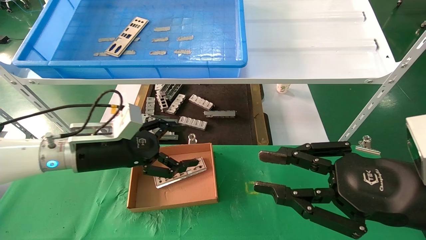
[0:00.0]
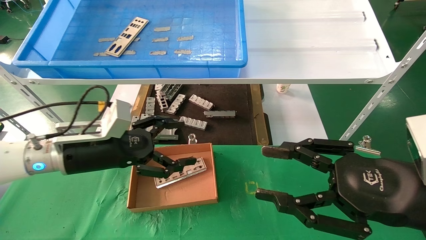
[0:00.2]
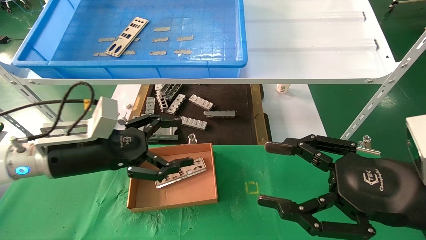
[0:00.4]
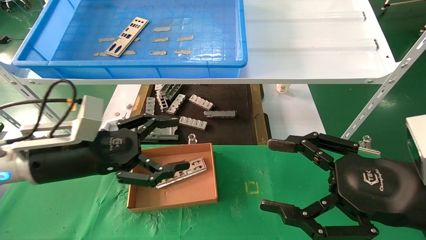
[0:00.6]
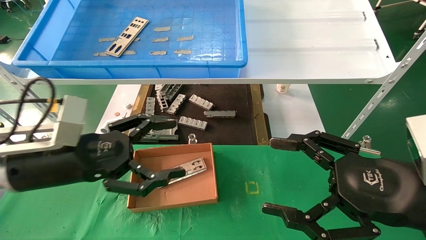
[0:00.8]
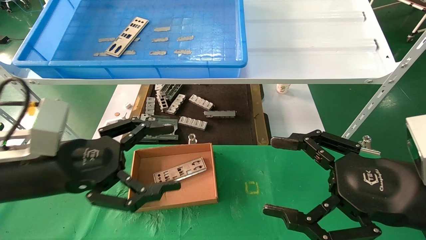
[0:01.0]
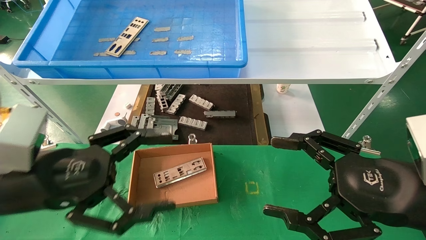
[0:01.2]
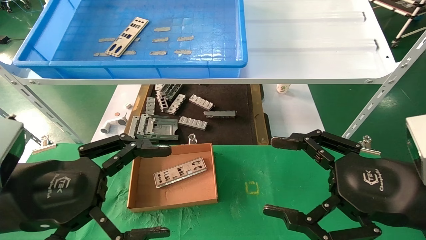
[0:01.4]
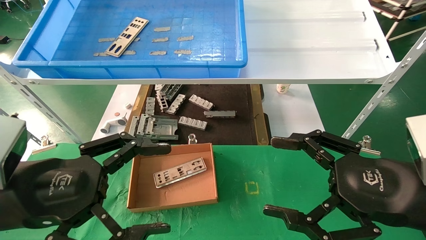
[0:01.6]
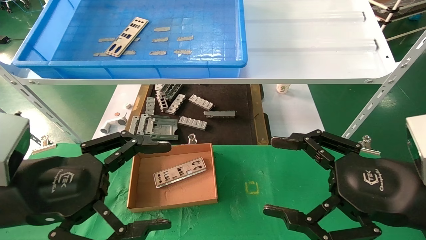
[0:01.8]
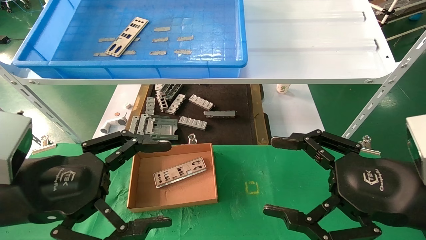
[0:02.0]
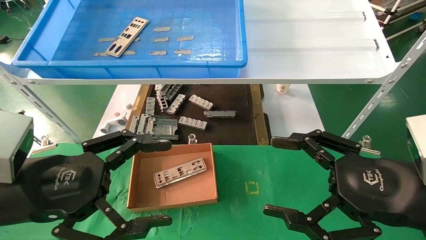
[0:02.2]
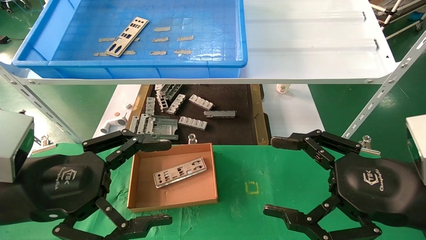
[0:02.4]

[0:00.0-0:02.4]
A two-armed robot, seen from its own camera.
Task of the whole recording: pick up the parts on the tray and put them in the cardboard box.
0:00.0 to 0:01.2: The left gripper shifts some 15 cm backward. Meanwhile the right gripper opens.
0:01.2 to 0:02.4: The grippers move only a little.
